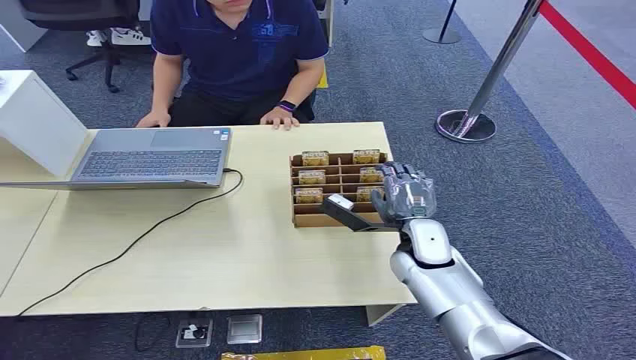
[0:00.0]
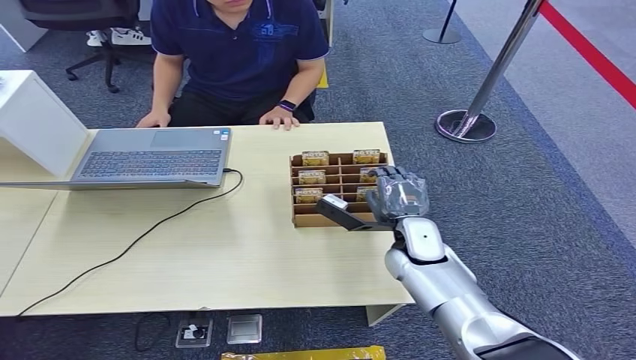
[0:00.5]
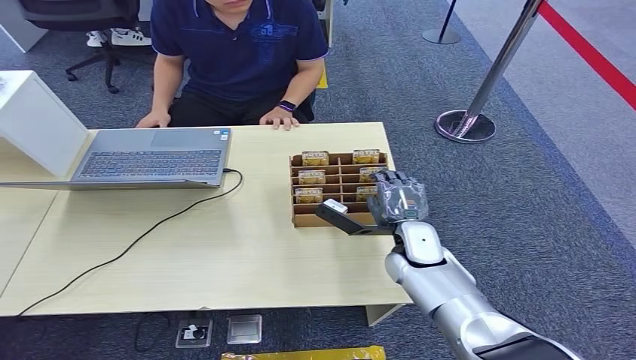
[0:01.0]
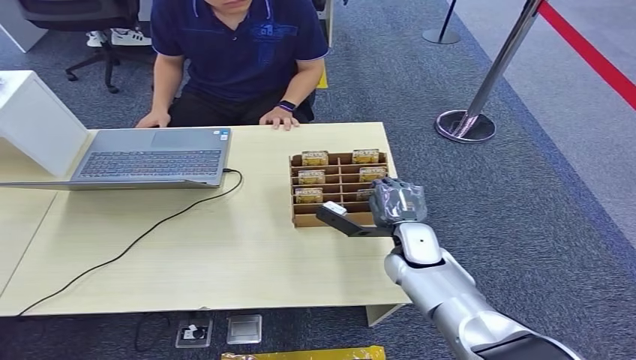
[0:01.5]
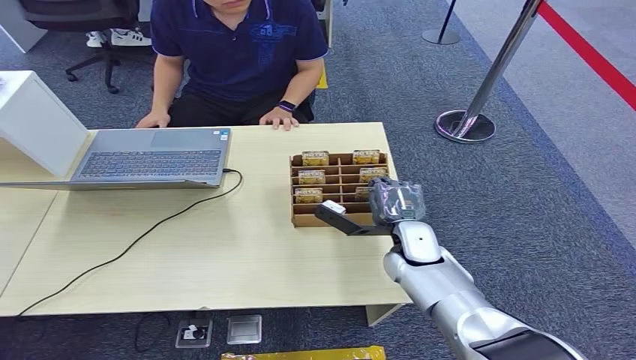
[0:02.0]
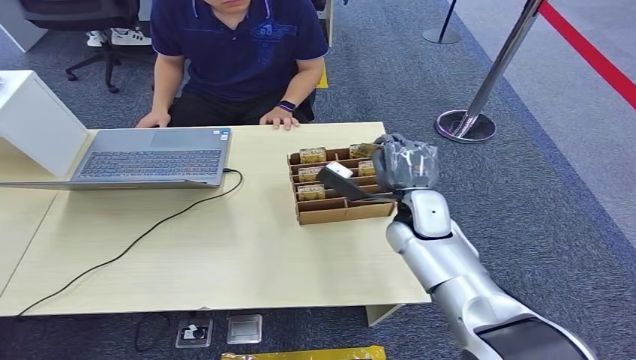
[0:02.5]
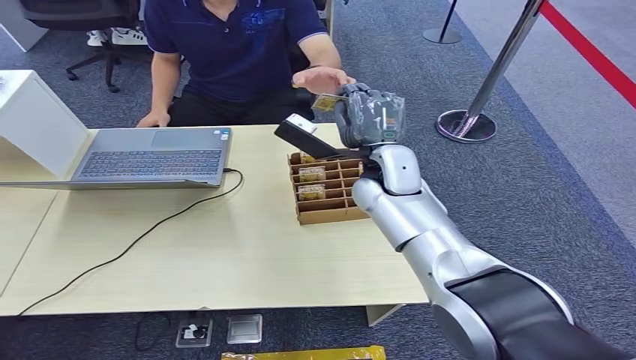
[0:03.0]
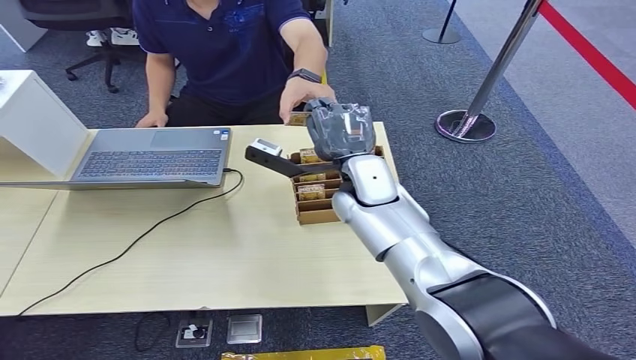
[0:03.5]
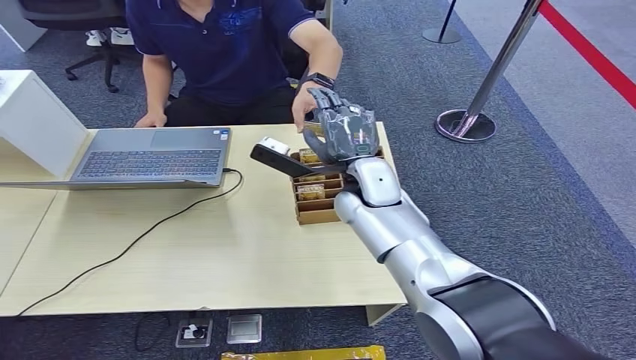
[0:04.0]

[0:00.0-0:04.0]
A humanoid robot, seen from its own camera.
Task of the whole recording: Pick up the card and hand it over to the target person.
Step, 0:00.0 to 0:02.0: Pick up the key card from the card box.
Step, 0:02.5 to 0:04.0: Hand the key card to the target.
0:02.0 to 0:04.0: The right hand is displaced upward and forward by about 15 cm.
